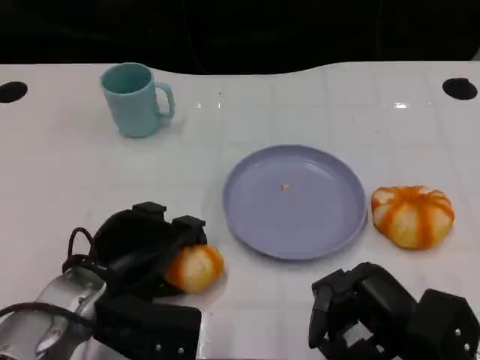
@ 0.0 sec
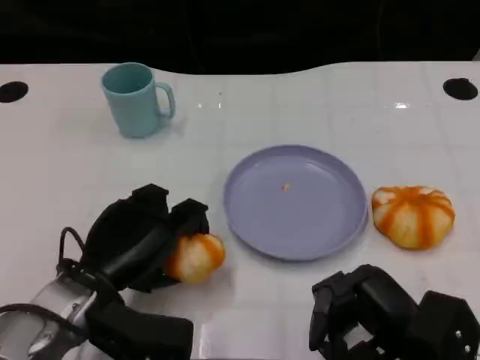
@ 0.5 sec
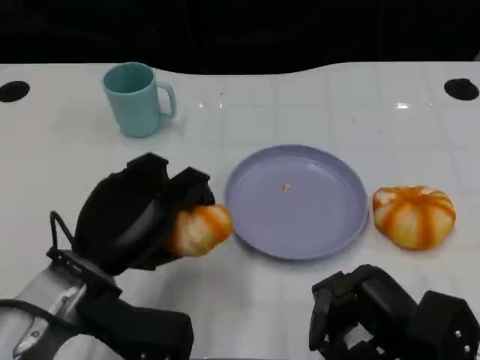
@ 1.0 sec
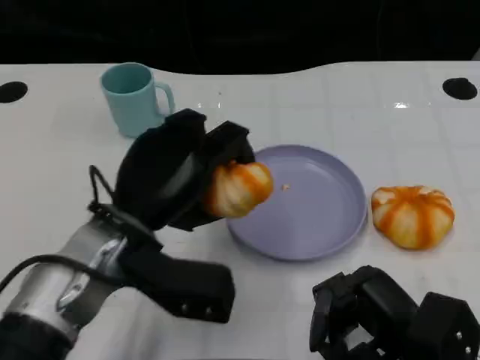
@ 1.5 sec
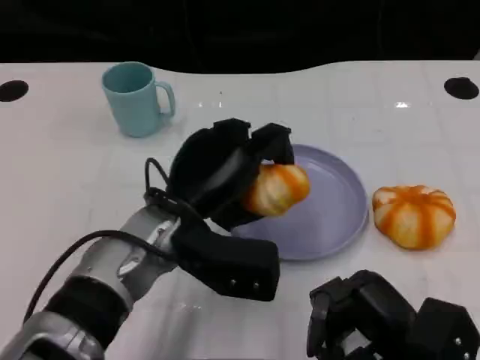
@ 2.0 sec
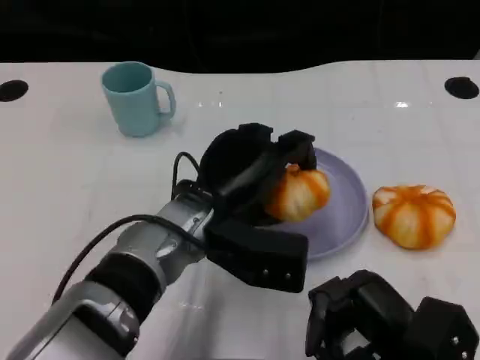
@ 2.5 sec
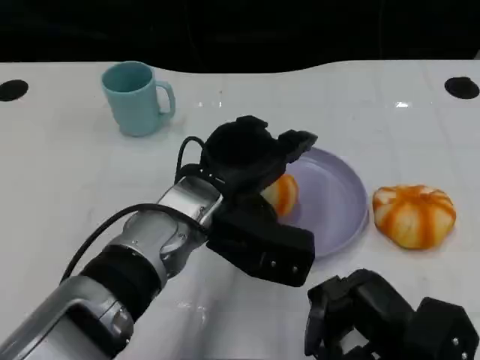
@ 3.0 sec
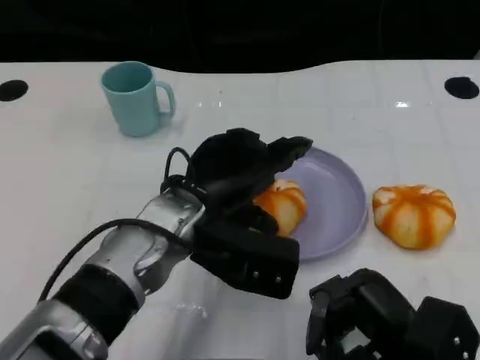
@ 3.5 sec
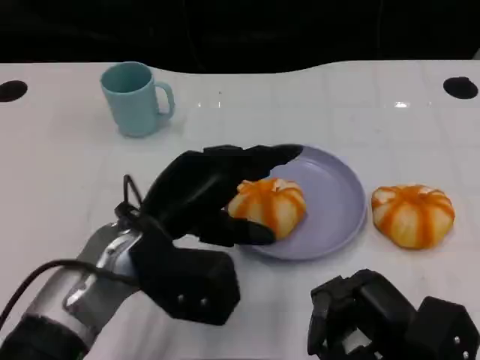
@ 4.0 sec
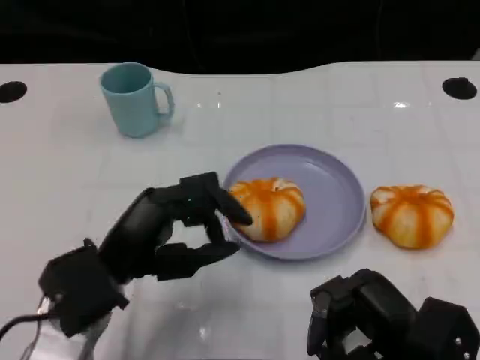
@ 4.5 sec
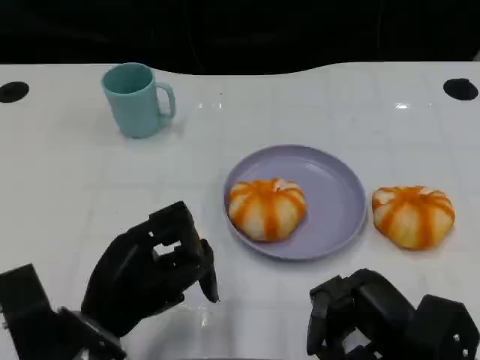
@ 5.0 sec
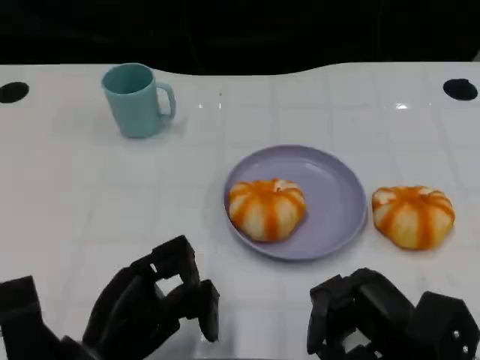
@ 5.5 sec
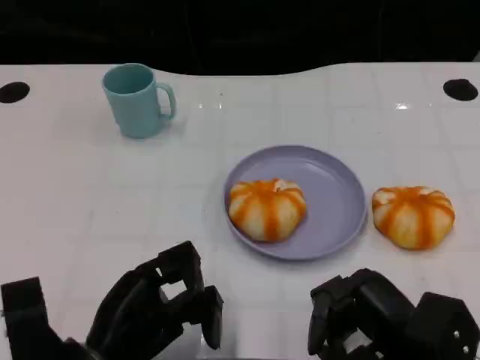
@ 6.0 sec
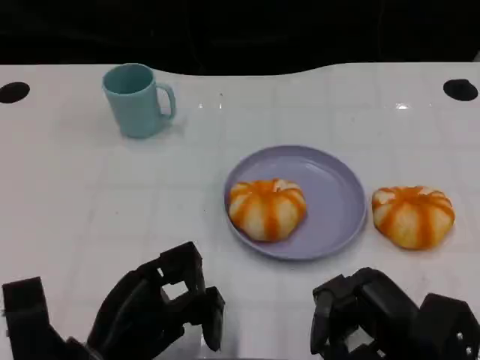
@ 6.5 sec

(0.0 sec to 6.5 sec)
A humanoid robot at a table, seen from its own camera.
Task of the whole recording: Grasp the bread from the table and place it into the plate.
0.0 sec - 2.0 sec: The left hand goes approximately 10 cm to the right.
2.0 sec - 4.5 sec: The left hand travels to the left and backward by about 10 cm.
4.5 sec - 6.5 sec: The left hand moves backward, approximately 5 cm.

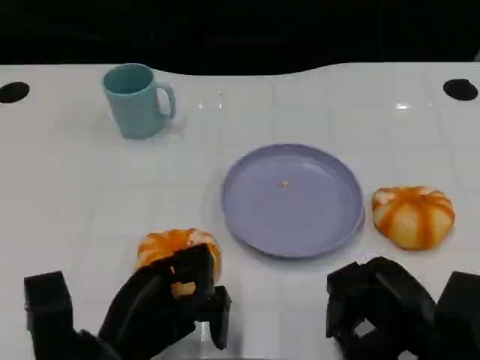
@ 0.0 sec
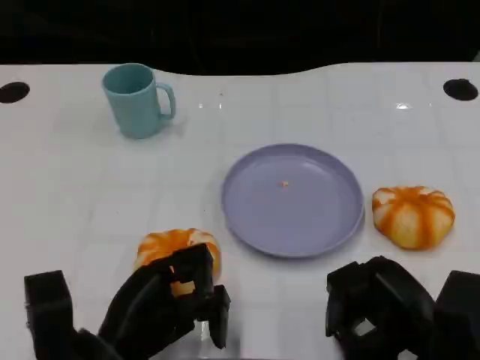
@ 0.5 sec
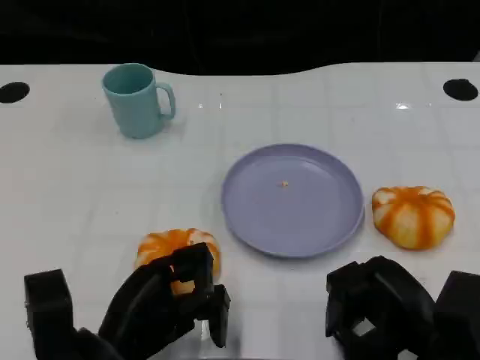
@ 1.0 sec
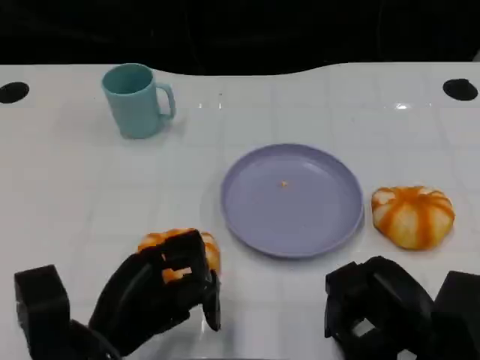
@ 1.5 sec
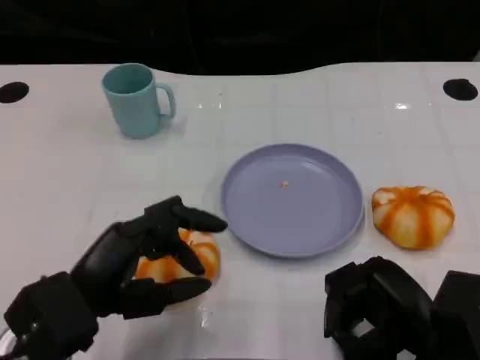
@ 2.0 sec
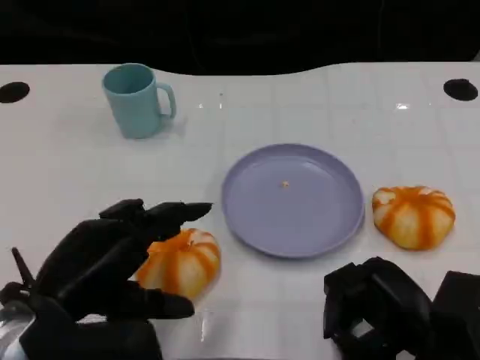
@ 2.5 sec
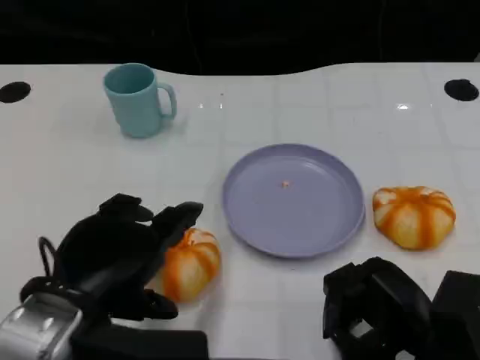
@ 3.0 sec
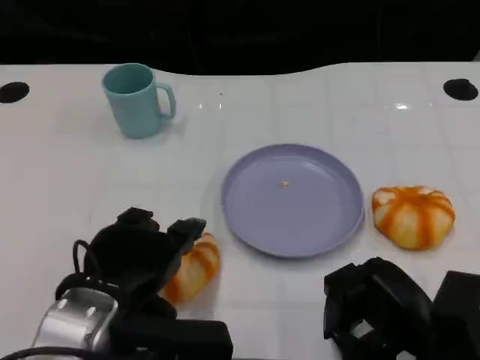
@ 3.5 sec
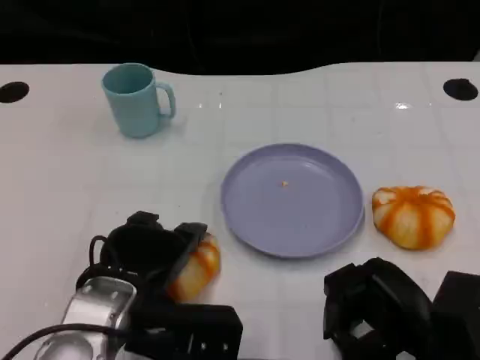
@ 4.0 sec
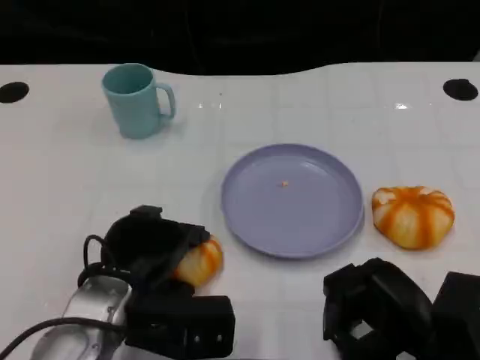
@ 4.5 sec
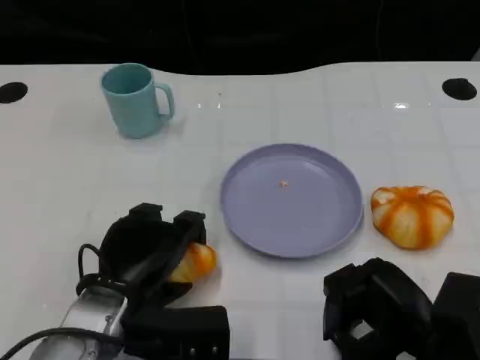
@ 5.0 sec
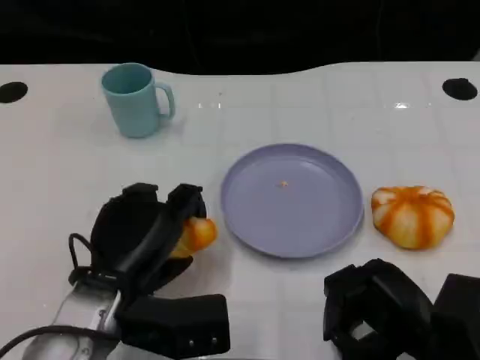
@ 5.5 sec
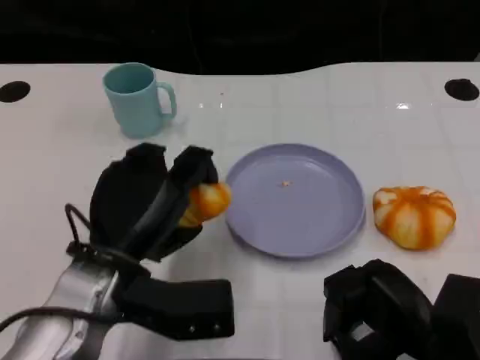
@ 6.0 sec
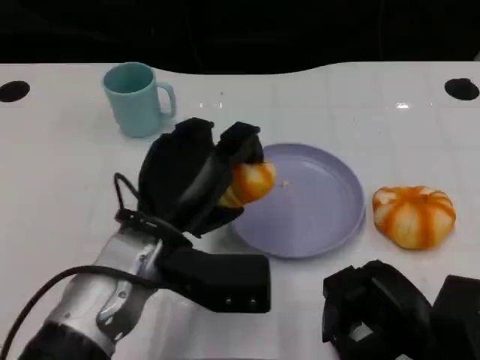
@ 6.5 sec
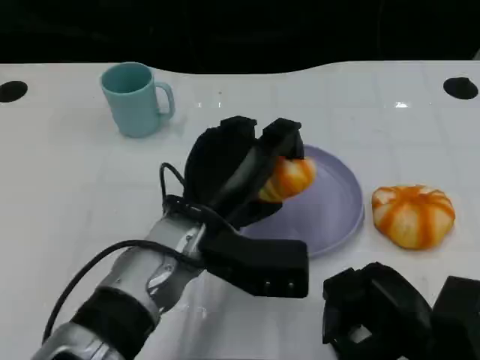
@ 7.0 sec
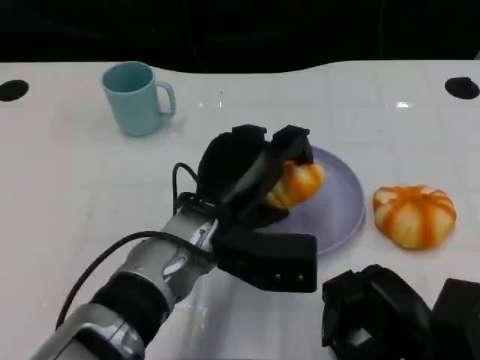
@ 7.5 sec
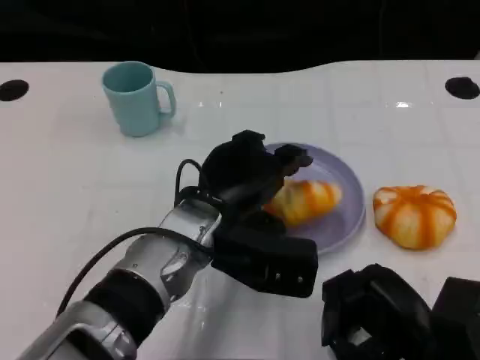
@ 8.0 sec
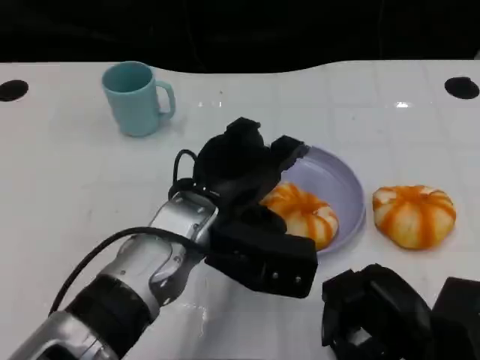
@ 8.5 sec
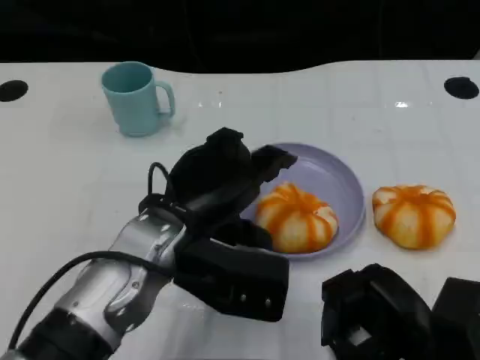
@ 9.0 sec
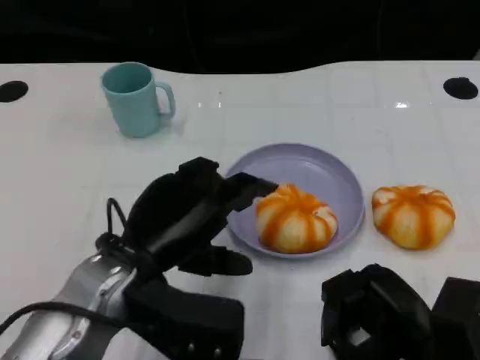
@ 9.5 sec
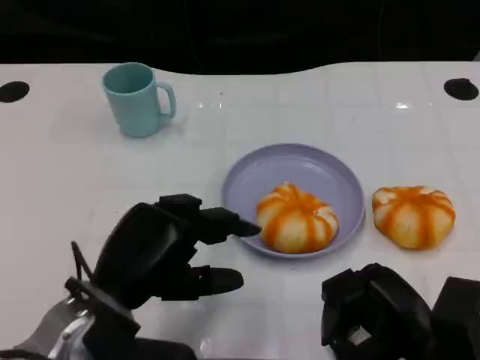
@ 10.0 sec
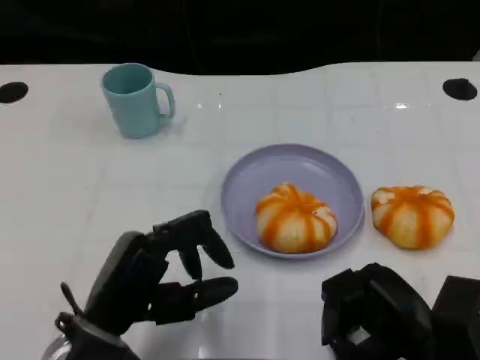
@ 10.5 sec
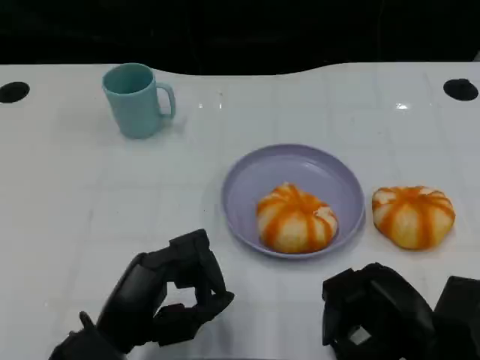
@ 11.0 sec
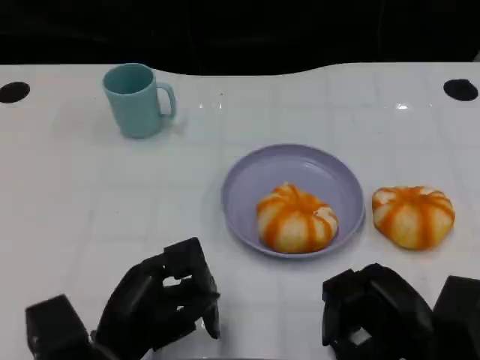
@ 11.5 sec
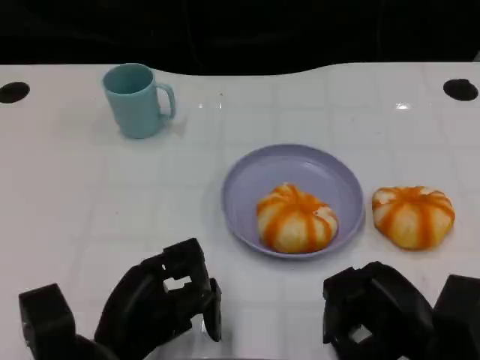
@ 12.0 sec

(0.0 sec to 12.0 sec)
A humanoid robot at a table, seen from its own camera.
Task of the whole recording: Grasp the bread from the table and place it into the plate.
0.0 sec - 2.0 sec: The left hand shifts about 5 cm upward.
2.0 sec - 4.0 sec: The left hand shifts about 5 cm to the right.
6.0 sec - 8.0 sec: The left hand goes roughly 10 cm to the right.
8.0 sec - 10.0 sec: The left hand travels to the left and backward by roughly 15 cm.
10.0 sec - 12.0 sec: The left hand shifts about 5 cm downward.

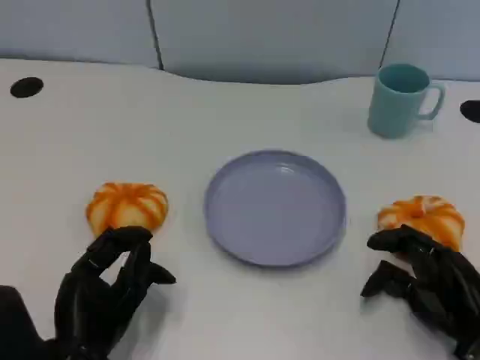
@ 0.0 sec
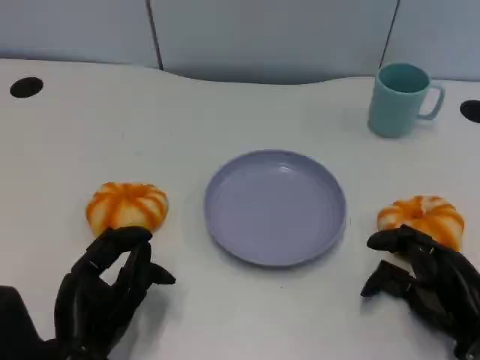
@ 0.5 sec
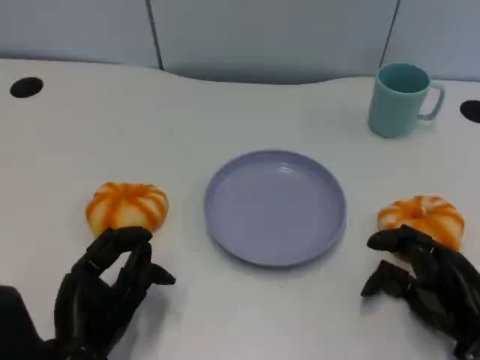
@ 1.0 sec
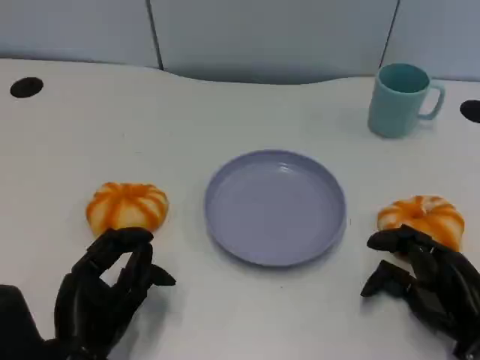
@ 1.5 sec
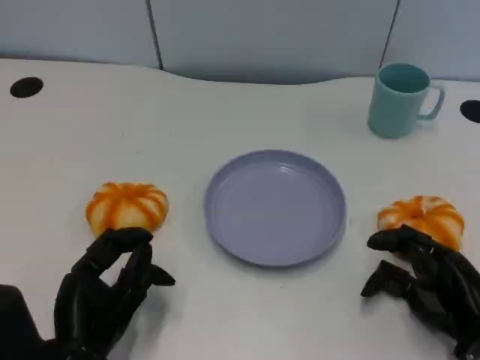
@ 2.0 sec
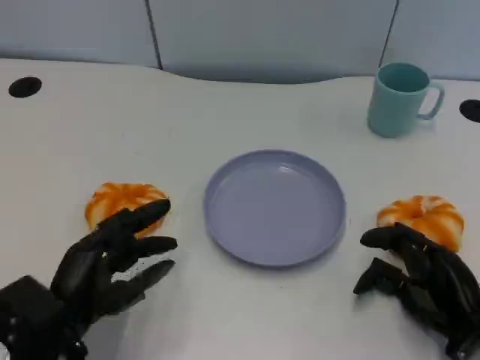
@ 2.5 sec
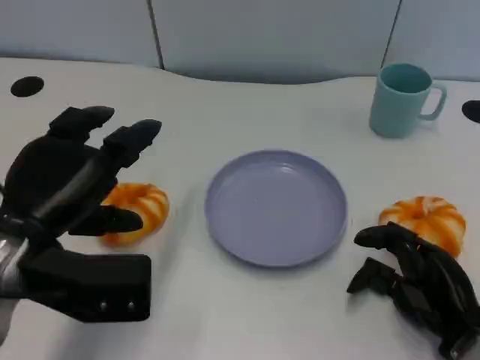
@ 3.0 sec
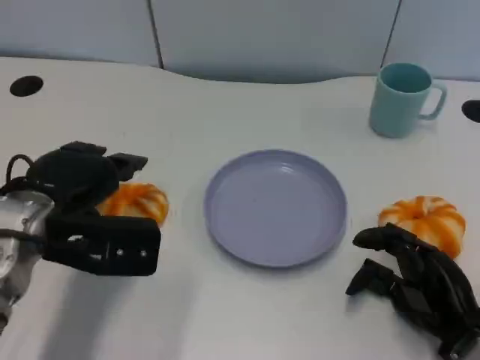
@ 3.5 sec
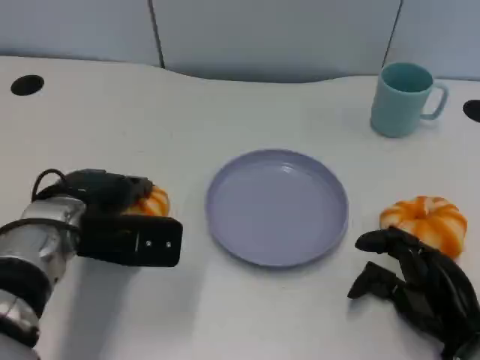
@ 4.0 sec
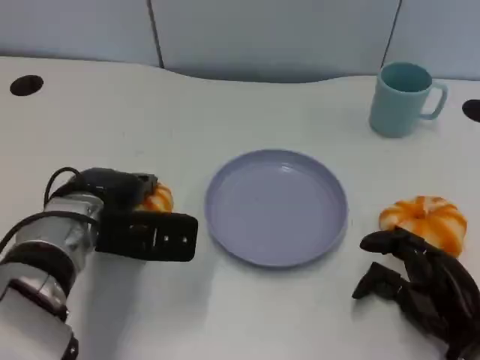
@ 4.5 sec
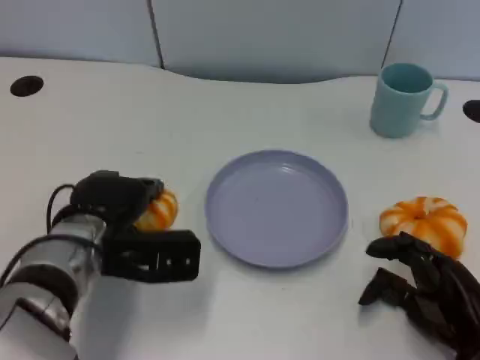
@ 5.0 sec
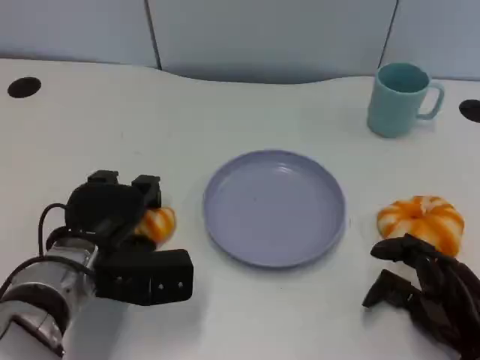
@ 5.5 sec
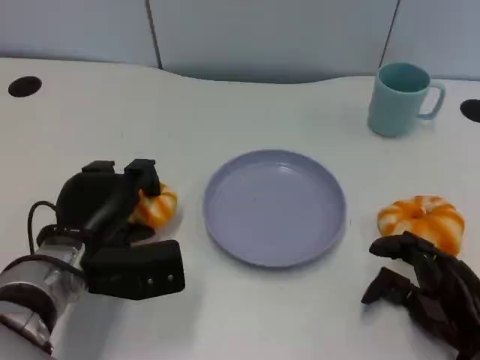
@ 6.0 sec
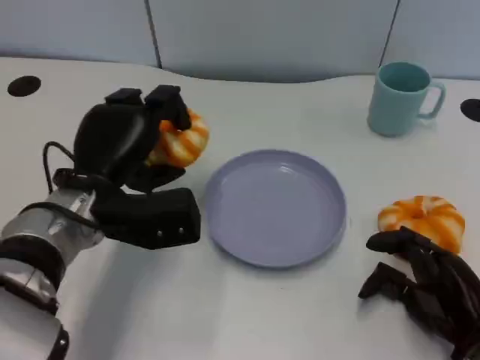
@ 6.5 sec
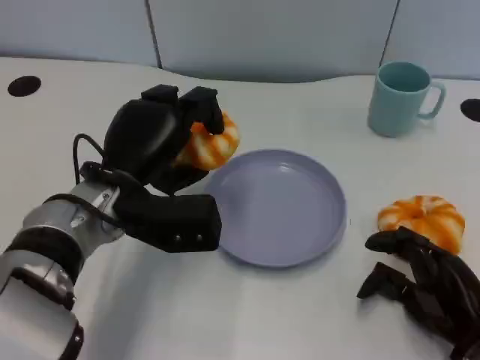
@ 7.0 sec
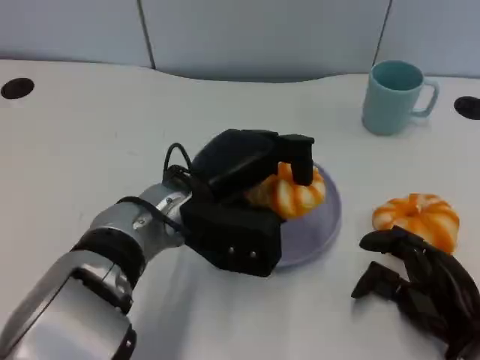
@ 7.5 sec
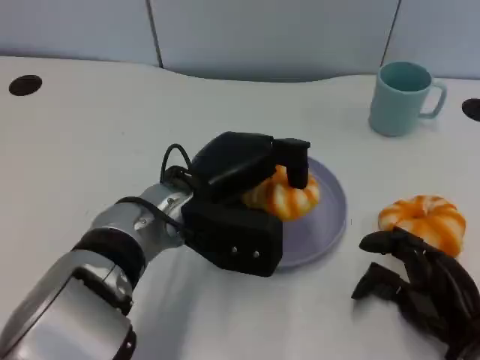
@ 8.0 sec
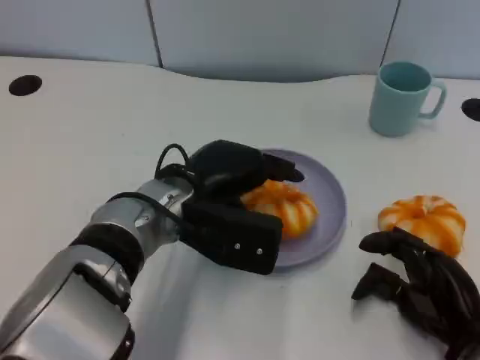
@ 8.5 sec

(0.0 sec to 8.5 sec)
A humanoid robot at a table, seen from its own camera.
Task of the whole recording: Grasp the bread from the table and place it into the plate.
0.0 sec - 2.0 sec: Both hands stay put.
2.0 sec - 4.0 sec: The left hand is displaced forward and upward by about 15 cm.
6.5 sec - 8.5 sec: The left hand is displaced to the right by some 10 cm.
